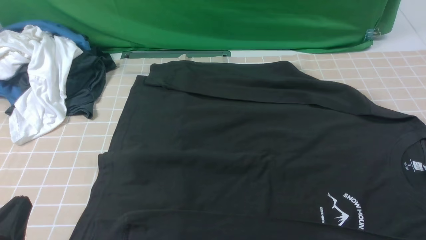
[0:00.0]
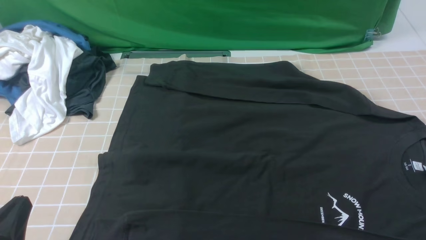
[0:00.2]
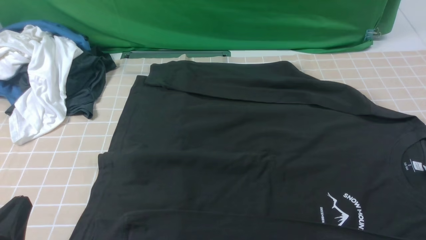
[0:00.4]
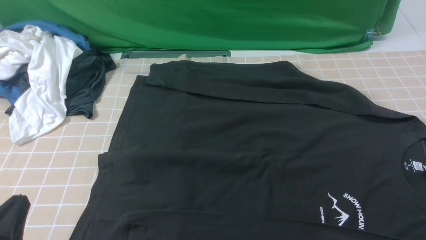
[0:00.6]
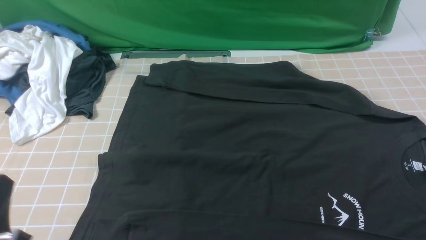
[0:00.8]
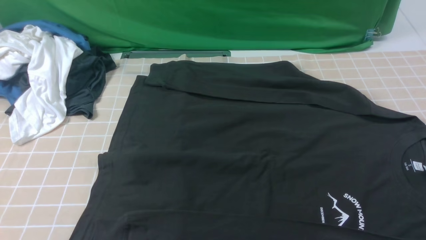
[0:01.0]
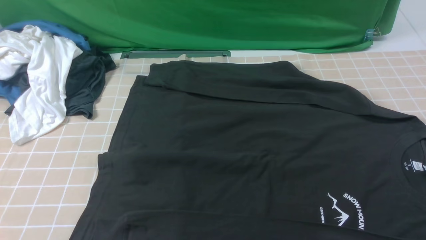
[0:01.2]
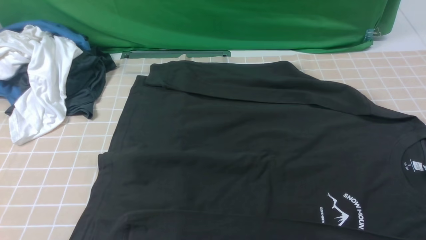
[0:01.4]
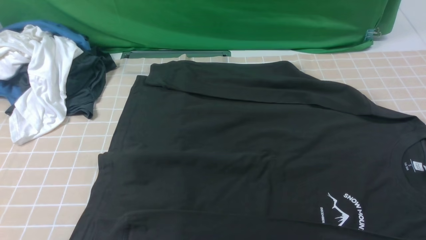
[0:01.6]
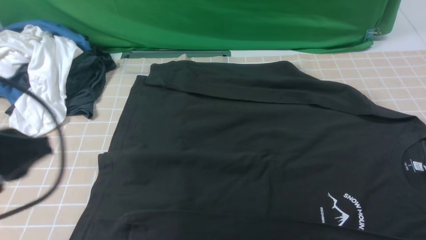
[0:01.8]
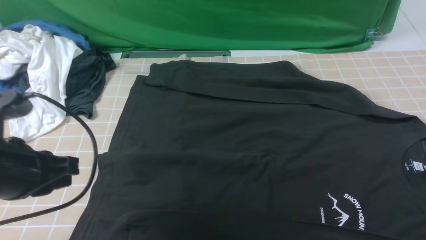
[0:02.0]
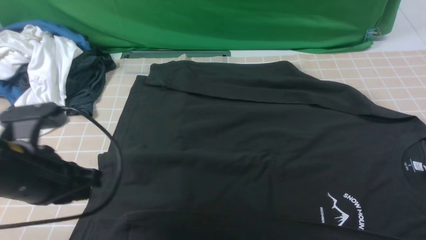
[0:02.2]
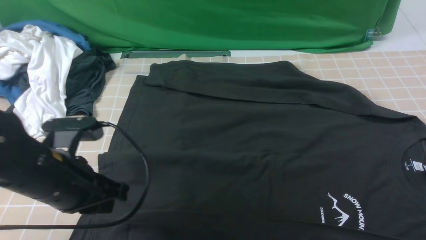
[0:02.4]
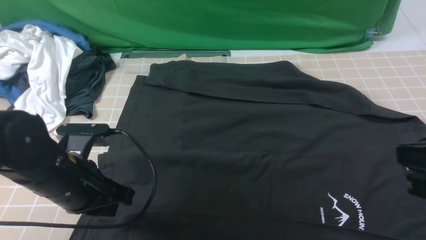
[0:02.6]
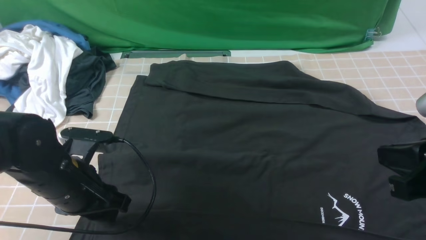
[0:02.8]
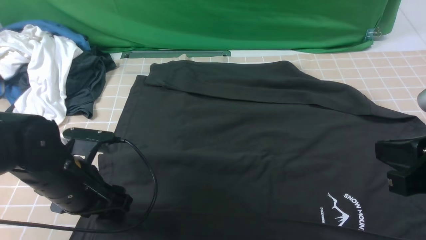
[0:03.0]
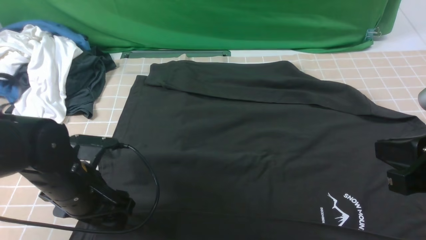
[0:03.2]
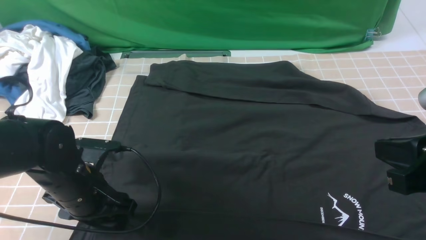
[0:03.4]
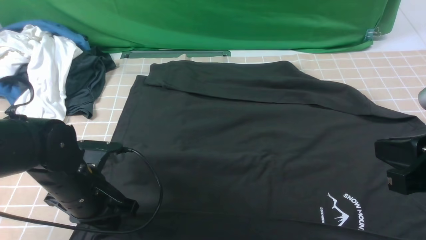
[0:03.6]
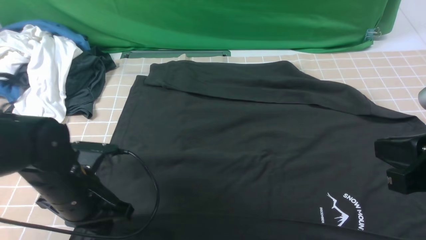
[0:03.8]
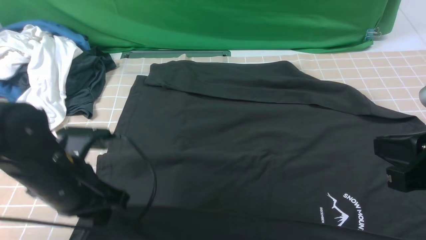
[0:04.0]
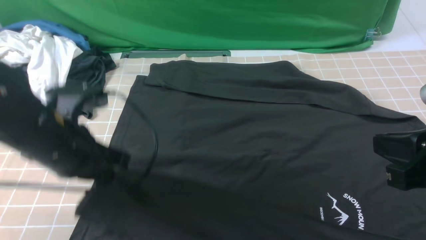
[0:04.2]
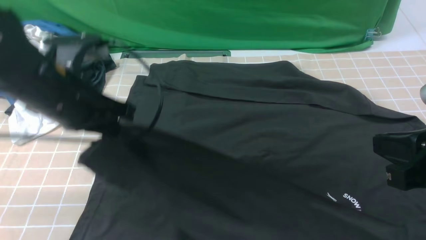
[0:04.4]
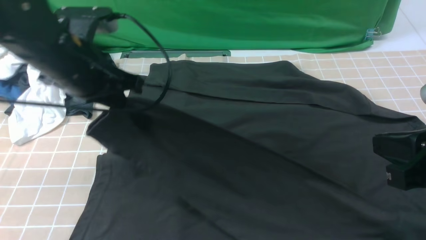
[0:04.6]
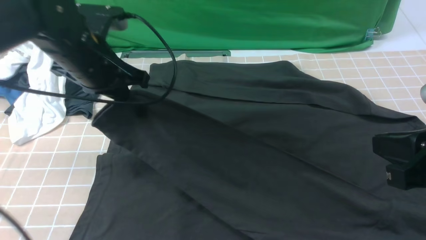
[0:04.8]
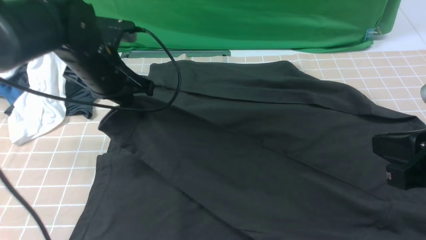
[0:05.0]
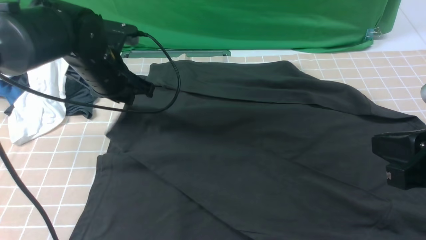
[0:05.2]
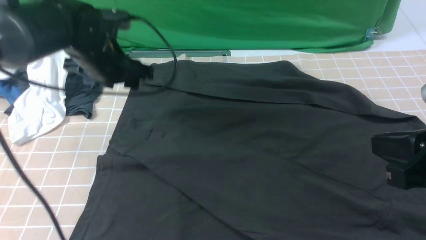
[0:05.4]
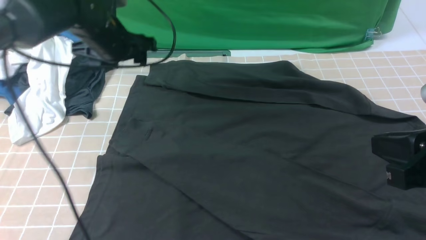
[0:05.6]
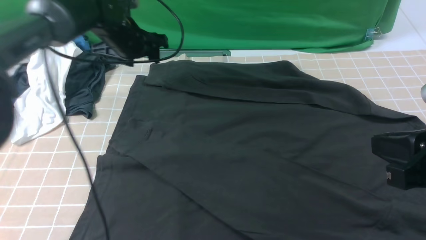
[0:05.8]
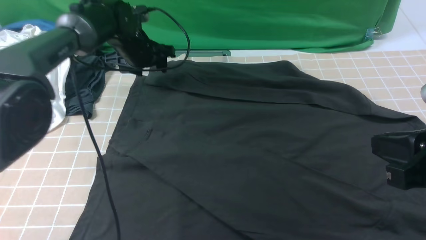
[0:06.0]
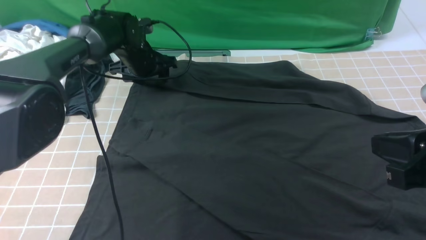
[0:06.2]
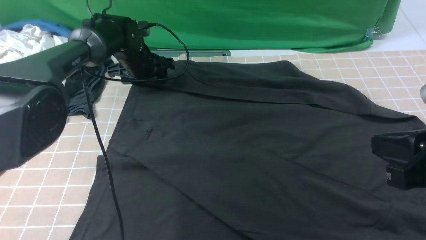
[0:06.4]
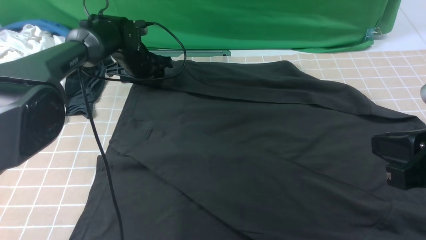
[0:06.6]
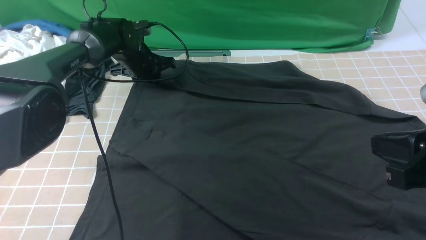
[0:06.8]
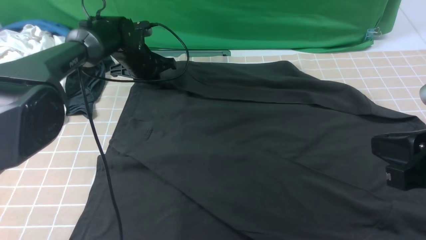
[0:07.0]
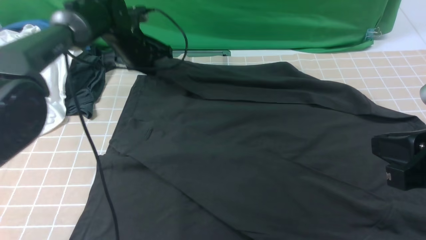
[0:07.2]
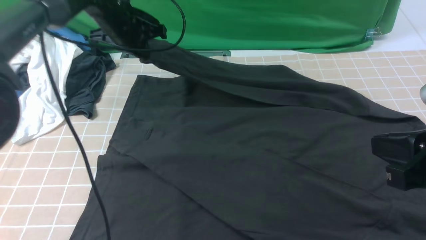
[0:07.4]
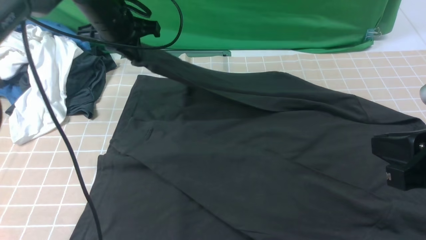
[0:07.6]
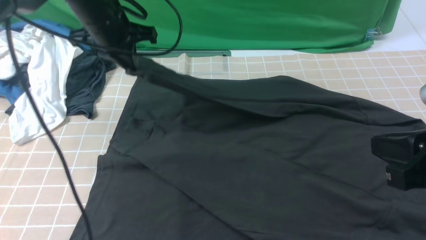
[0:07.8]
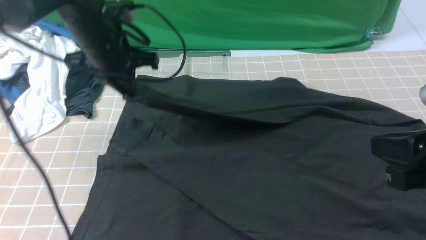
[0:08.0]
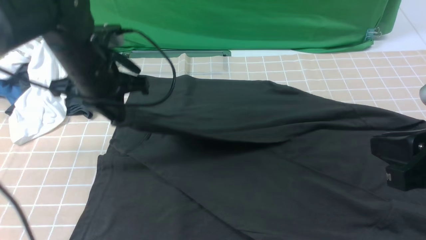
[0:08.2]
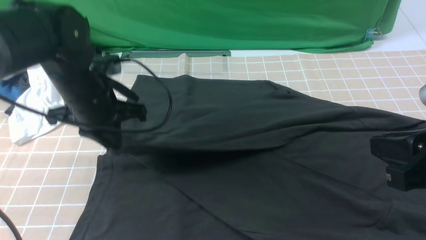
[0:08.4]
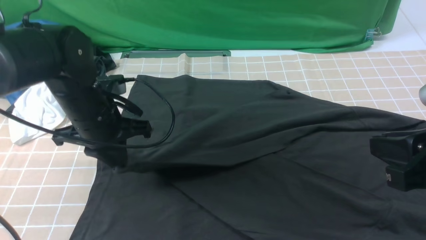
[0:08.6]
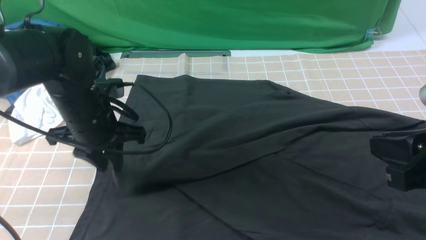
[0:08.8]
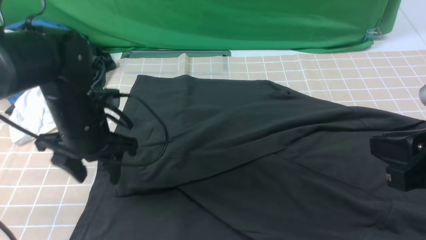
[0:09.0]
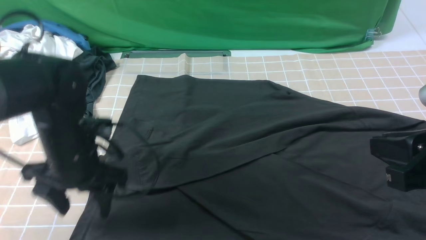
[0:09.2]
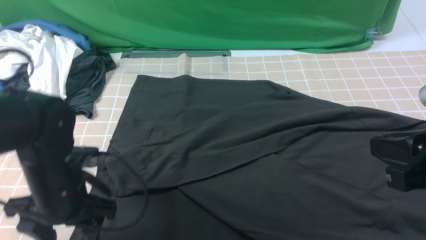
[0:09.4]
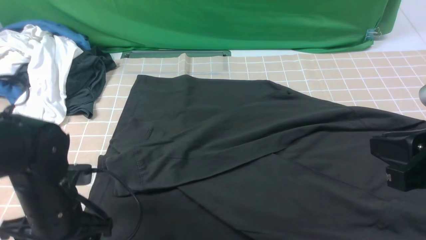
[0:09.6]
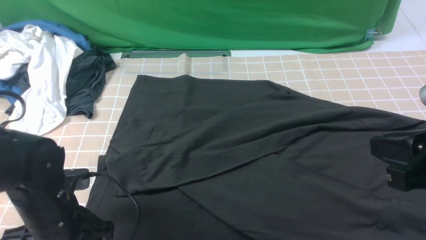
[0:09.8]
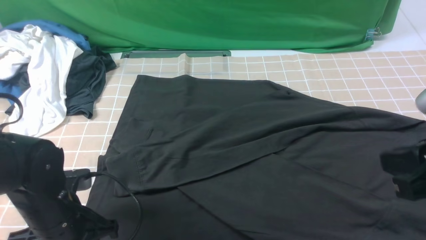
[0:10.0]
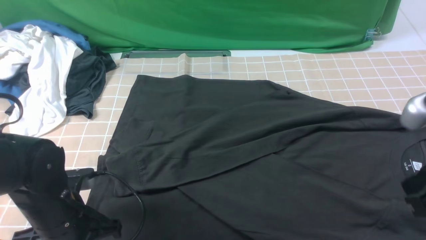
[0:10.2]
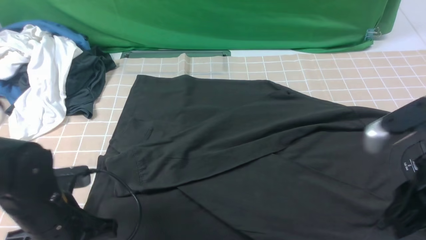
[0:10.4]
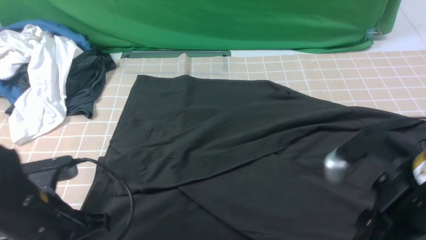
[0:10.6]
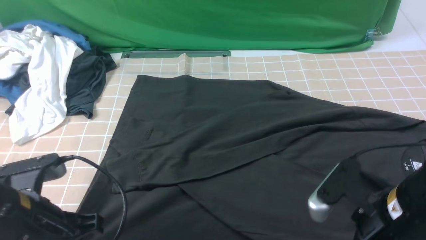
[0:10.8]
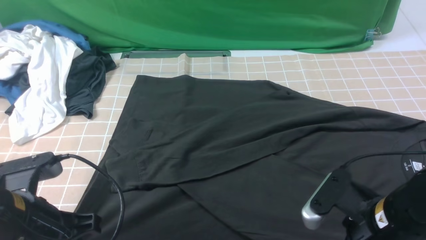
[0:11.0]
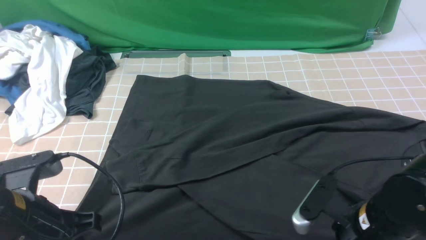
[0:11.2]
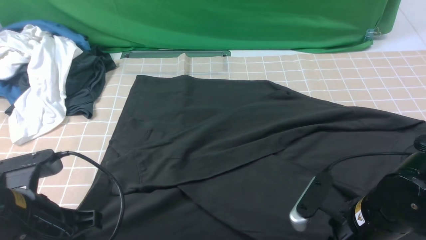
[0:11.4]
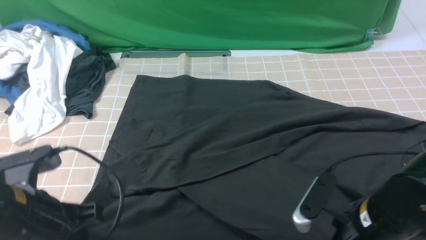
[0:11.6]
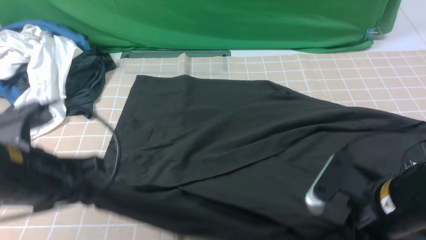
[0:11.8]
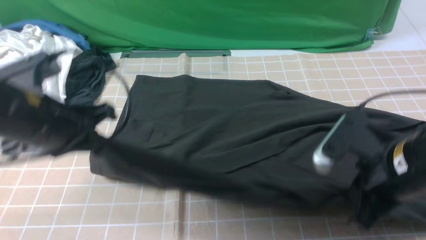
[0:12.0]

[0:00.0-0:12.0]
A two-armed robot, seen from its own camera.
Step, 0.0 to 3.6 s: use the left arm to clamp the cuff closest to it.
Step, 3.8 to 5.2 s: use the left arm to drag and place the cuff at the centered position on the left edge of the fabric.
Step, 5.4 to 6.8 s: use the left arm to clamp the cuff farthest from it.
Step, 7.0 to 8.8 s: use the left arm to drag and drop the cuff onto the cuff closest to the left arm.
Step, 9.0 to 11.4 s: use both arms simultaneously to clamp the lower edge of the clothing fabric.
0.0 to 1.6 s: The left gripper is displaced upward by roughly 15 cm.
1.6 to 3.0 s: The right gripper moves forward, upward and to the left, some 15 cm, and closes its fingers. The left gripper is displaced downward, forward and to the right by some 20 cm, and opens.
3.0 to 4.4 s: The left gripper is displaced upward and forward by some 15 cm, and closes its fingers.
4.4 to 6.0 s: The left gripper heads forward and downward, covering approximately 25 cm, and opens.
6.0 to 7.6 s: The left gripper travels upward and backward by some 10 cm, and closes its fingers.
7.6 to 9.0 s: The left gripper goes roughly 20 cm backward and downward, and opens its fingers.
9.0 to 10.4 s: The left gripper travels backward by approximately 10 cm, and closes its fingers.
10.4 to 12.0 s: The right gripper moves forward, approximately 5 cm, and closes up. The left gripper heads upward and forward, covering some 15 cm.

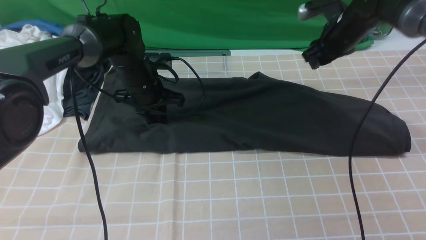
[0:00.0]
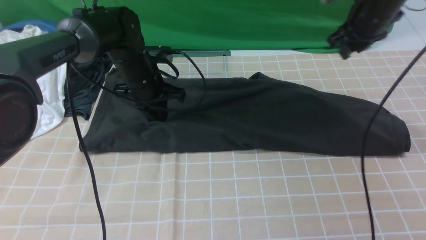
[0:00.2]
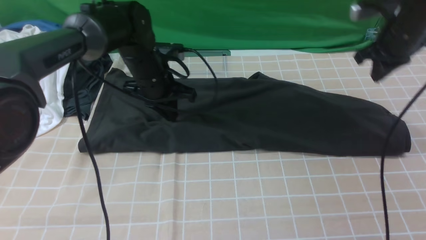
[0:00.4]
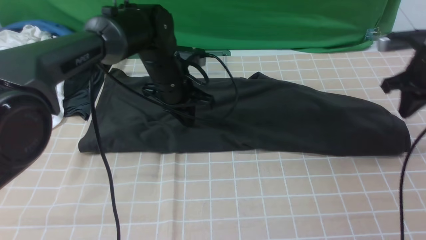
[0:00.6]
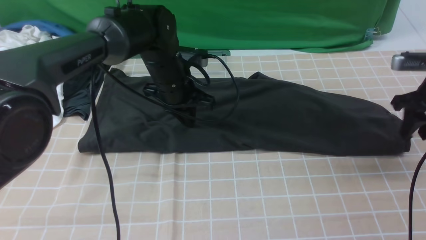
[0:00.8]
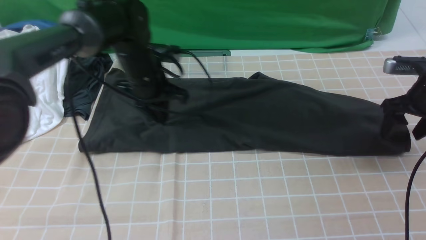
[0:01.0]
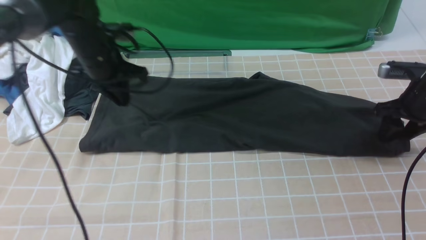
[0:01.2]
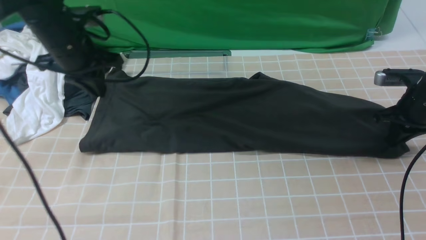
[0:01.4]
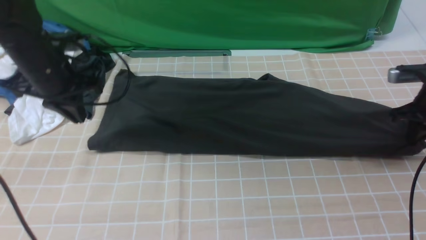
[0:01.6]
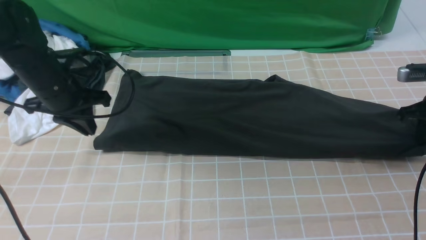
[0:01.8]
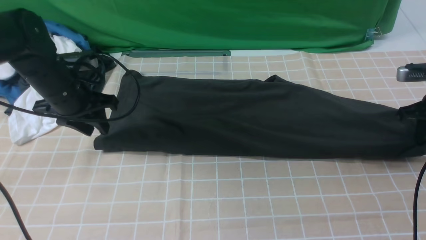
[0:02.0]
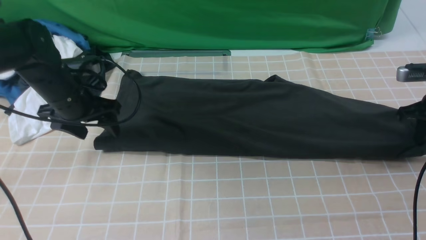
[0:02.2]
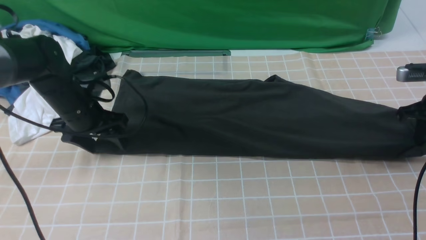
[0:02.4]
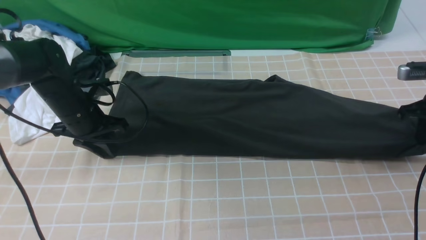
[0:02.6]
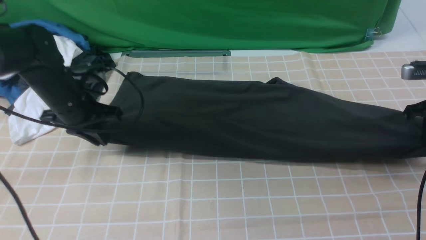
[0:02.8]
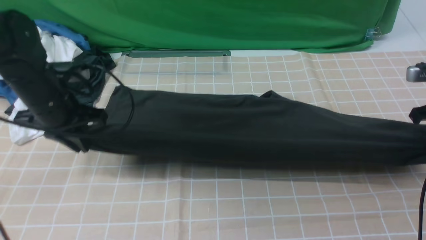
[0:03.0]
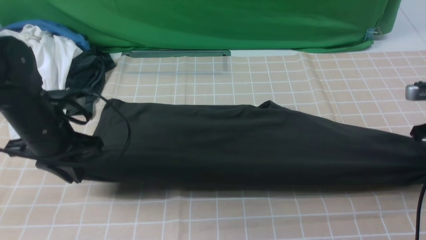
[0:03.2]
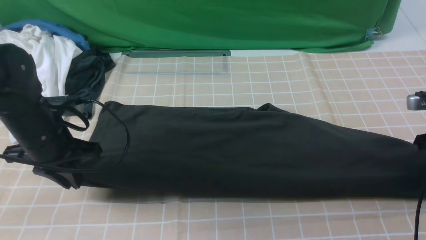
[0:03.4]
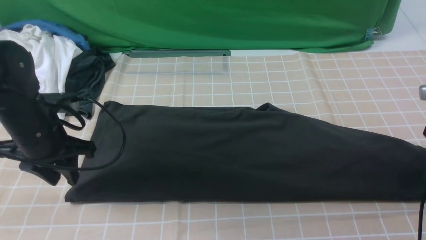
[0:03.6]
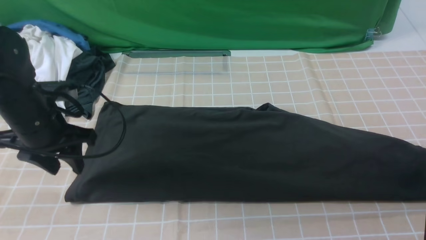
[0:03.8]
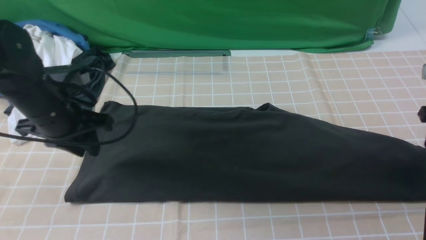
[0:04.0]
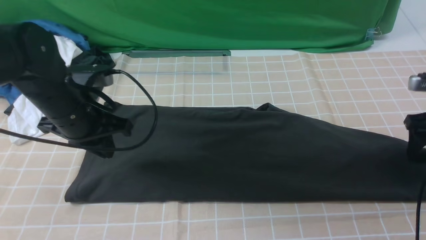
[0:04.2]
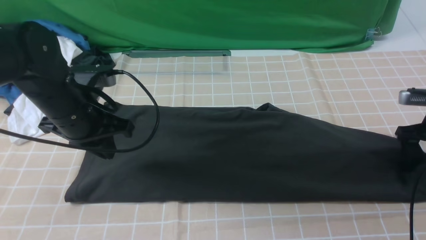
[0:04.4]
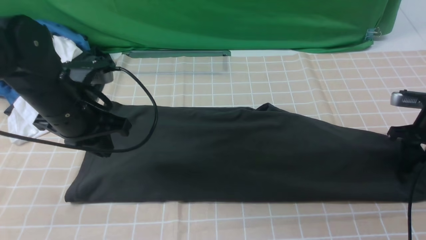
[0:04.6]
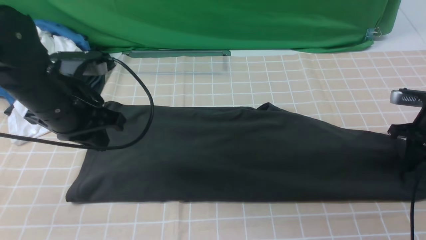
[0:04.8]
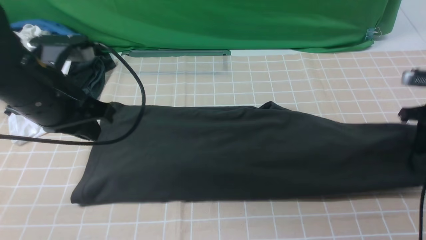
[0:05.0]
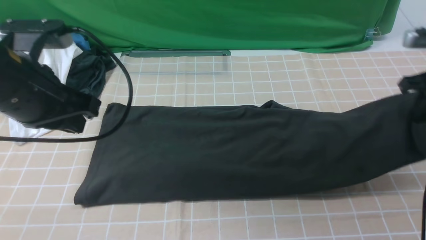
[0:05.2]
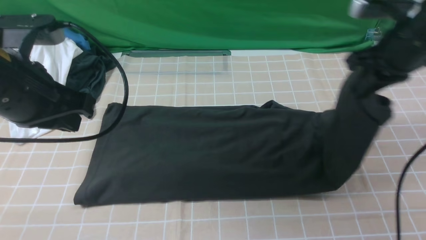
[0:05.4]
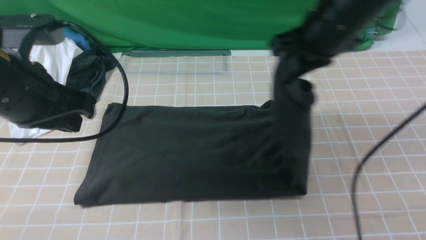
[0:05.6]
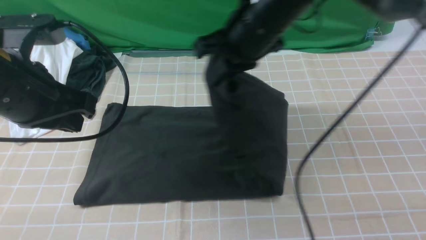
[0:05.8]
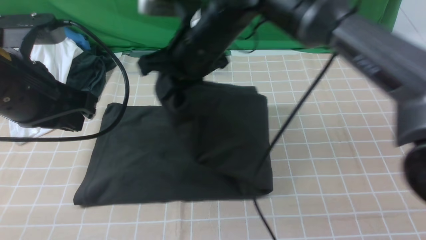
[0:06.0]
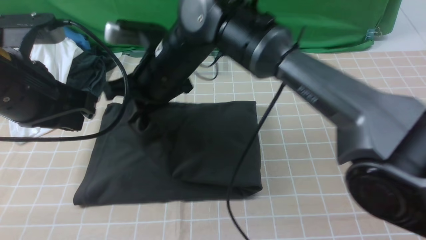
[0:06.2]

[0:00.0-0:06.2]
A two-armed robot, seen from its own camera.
Step, 0.0 to 4.8 s: use the right arm to clamp the right edge of the fabric.
0.0 to 1.6 s: The left gripper goes approximately 15 cm to the left, upward and backward. The right gripper heads to the right, backward and downward, covering roughly 20 cm, and closes up.
1.6 to 3.2 s: The right gripper ends up roughly 5 cm from where it was, while the left gripper shifts about 10 cm backward, and opens, then closes once more.
3.2 to 4.6 s: The right gripper opens, while the left gripper is displaced to the right by some 5 cm, and opens, then closes once more.
4.6 to 6.2 s: The right gripper is displaced to the left by about 40 cm, and closes; the left gripper heads upward and backward, covering roughly 10 cm.
